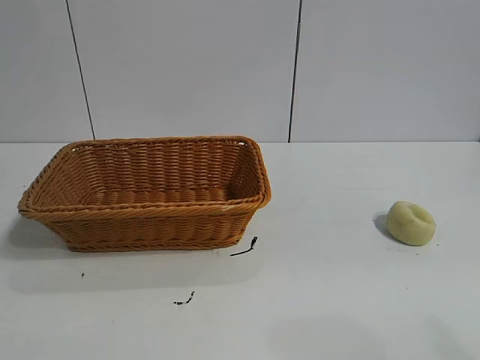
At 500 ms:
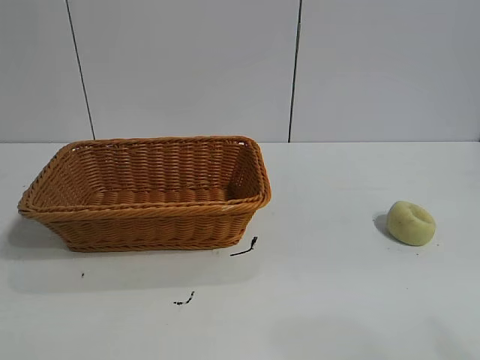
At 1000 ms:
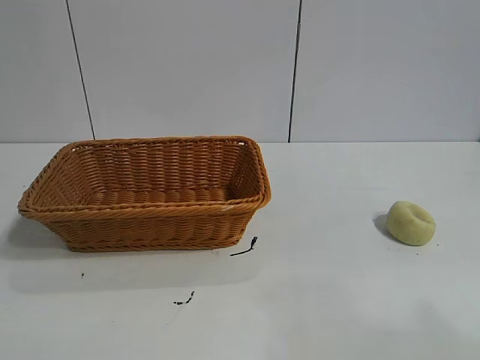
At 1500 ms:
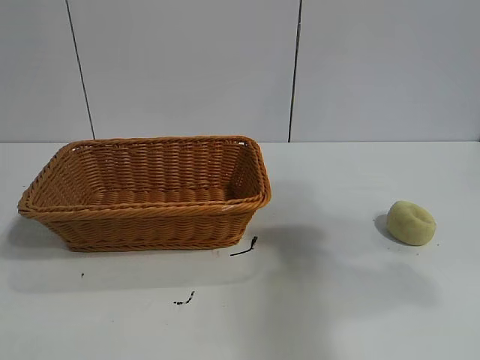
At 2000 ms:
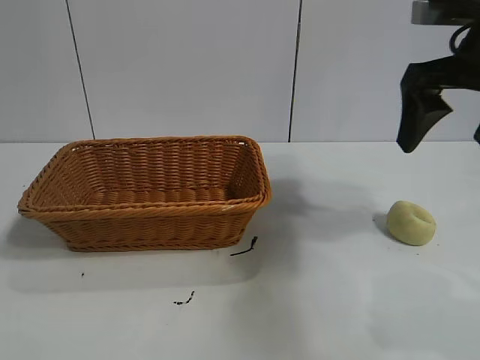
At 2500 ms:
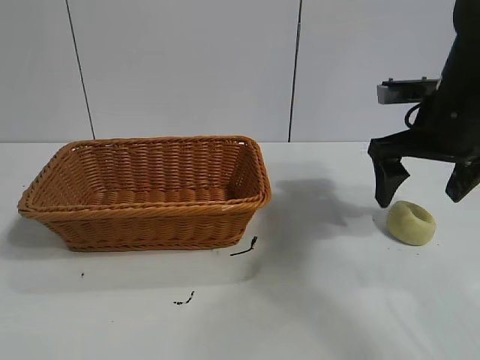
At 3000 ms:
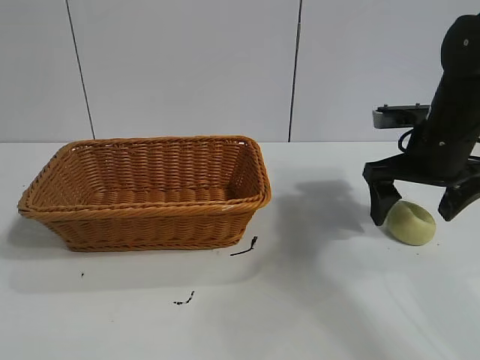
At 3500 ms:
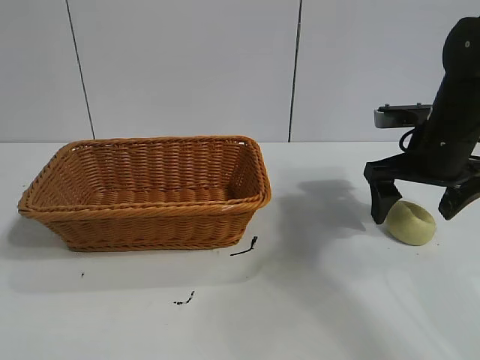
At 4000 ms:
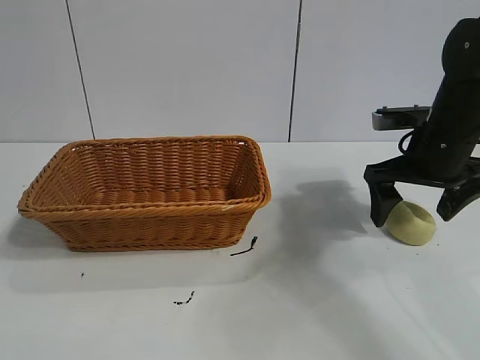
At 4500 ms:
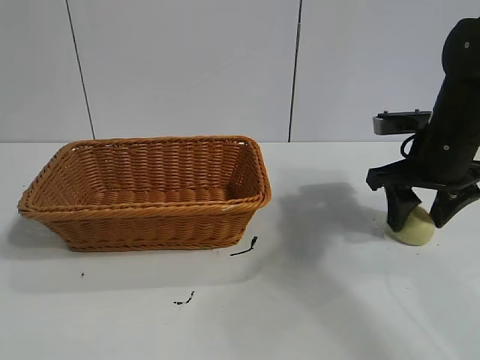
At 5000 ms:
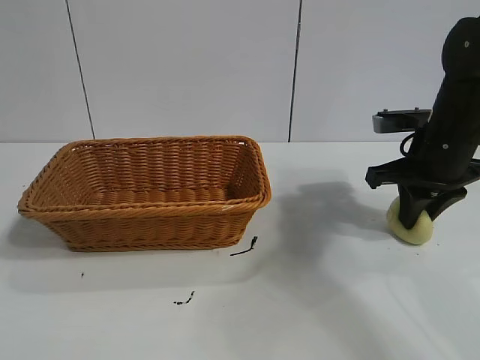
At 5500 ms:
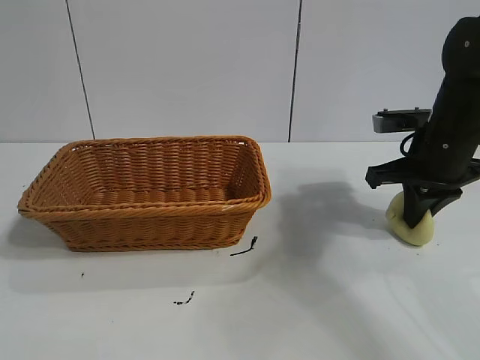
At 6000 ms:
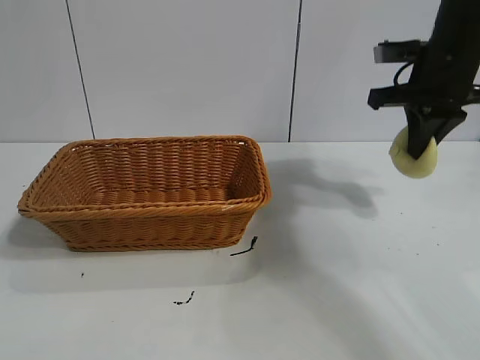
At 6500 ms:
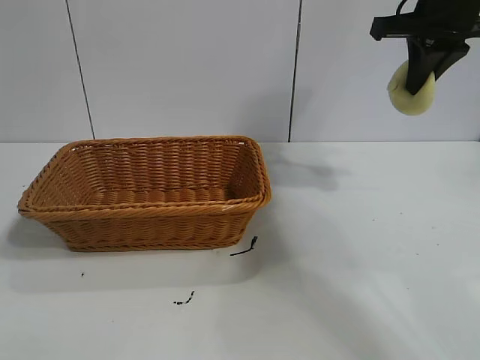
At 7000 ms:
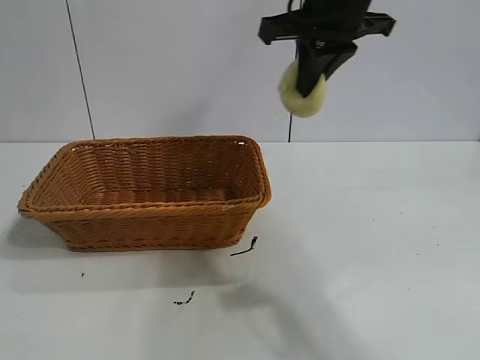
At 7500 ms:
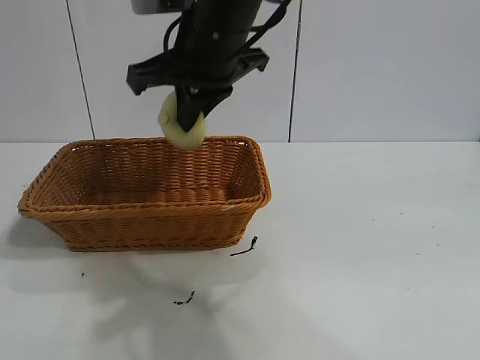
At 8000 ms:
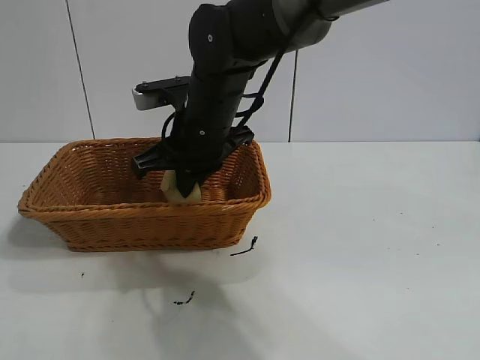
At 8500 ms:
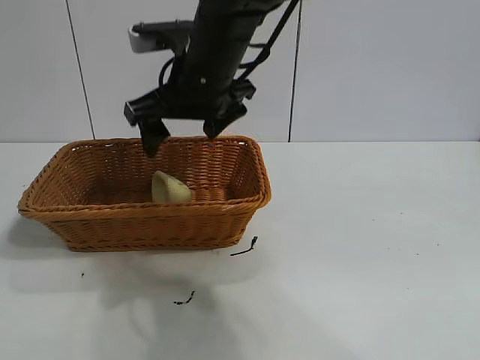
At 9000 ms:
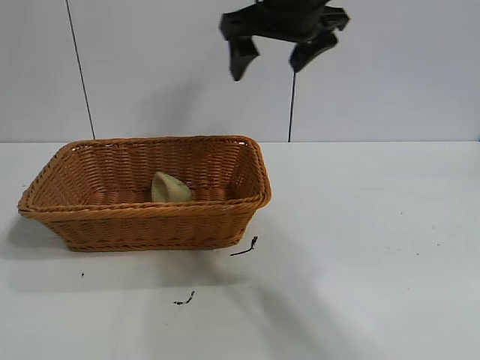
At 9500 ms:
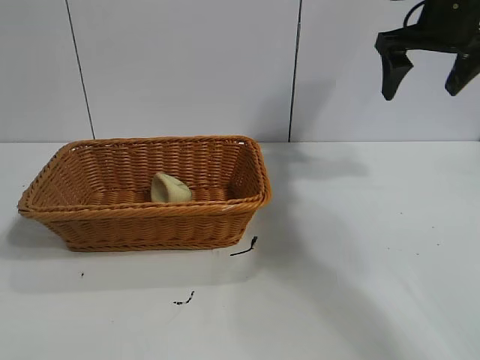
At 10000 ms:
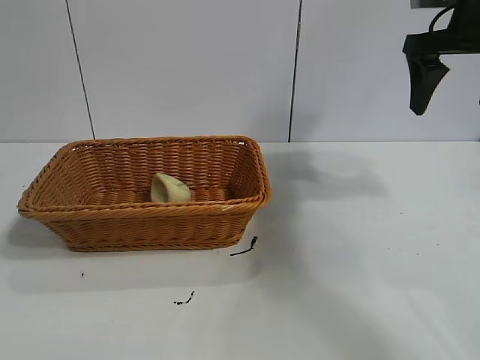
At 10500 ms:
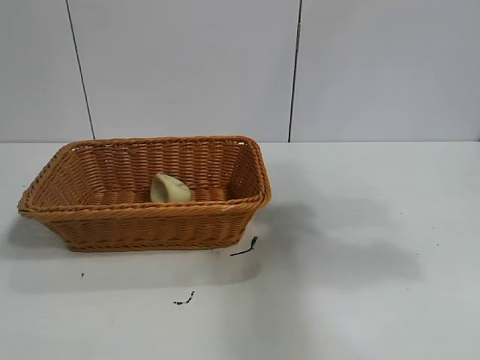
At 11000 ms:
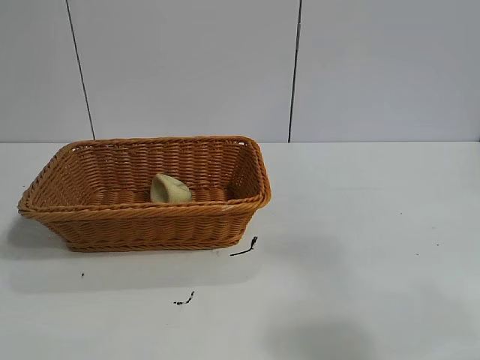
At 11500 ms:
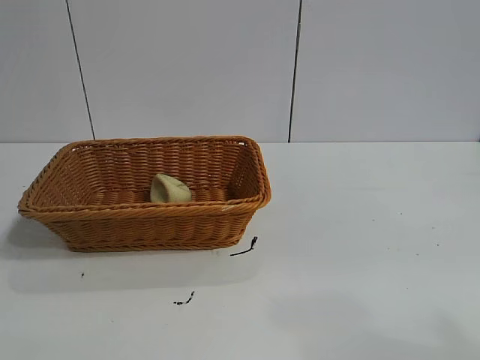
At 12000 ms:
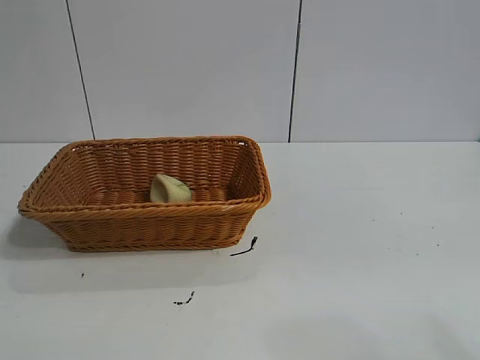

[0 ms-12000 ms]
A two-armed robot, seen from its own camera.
Task of the whole recording: pick up the egg yolk pastry and put it into the basket.
Step, 1000 ms to 4500 ms: Grasp egg yolk pastry with right gripper.
Step, 5000 ms to 8000 ms: Place the egg yolk pastry in the basket with right gripper.

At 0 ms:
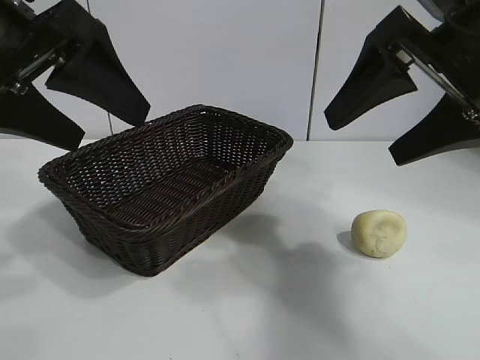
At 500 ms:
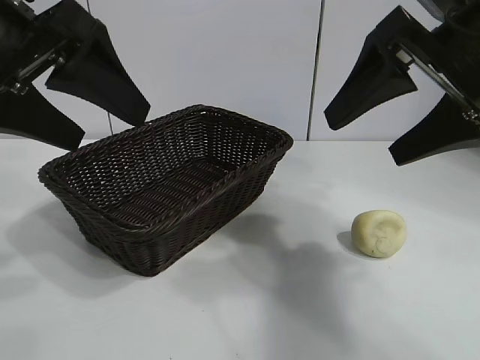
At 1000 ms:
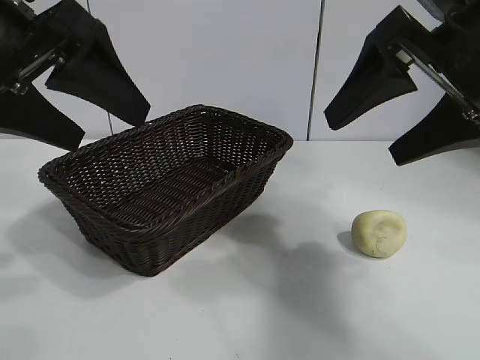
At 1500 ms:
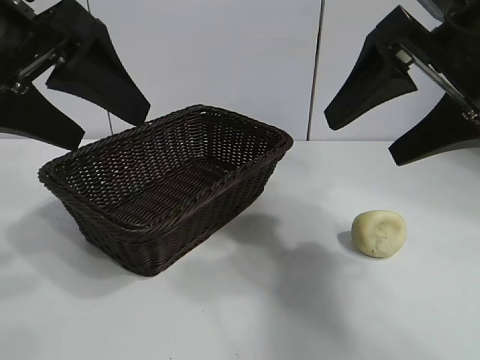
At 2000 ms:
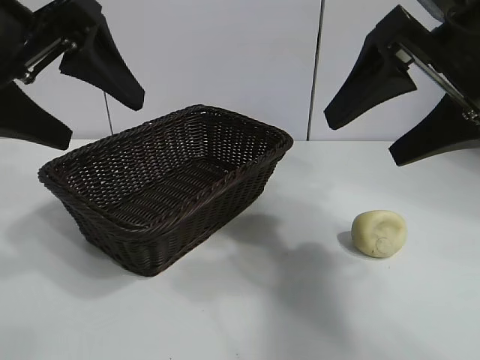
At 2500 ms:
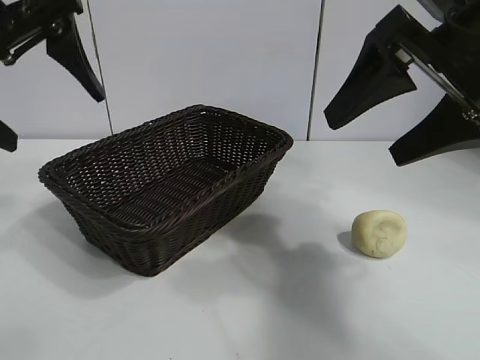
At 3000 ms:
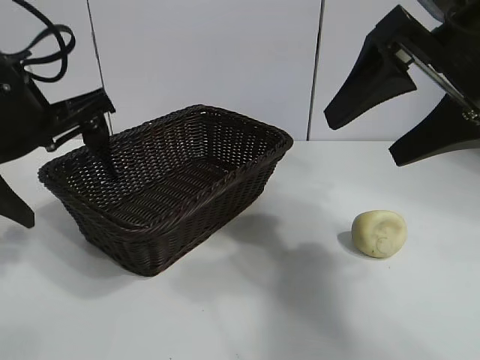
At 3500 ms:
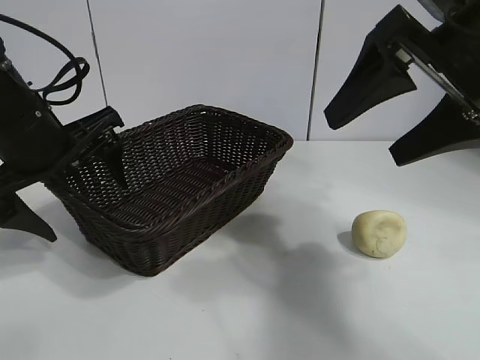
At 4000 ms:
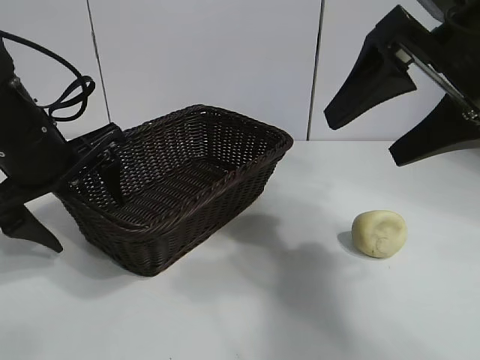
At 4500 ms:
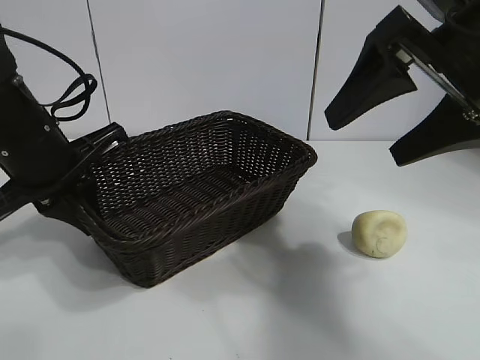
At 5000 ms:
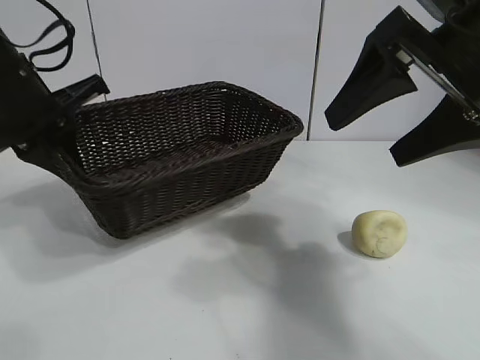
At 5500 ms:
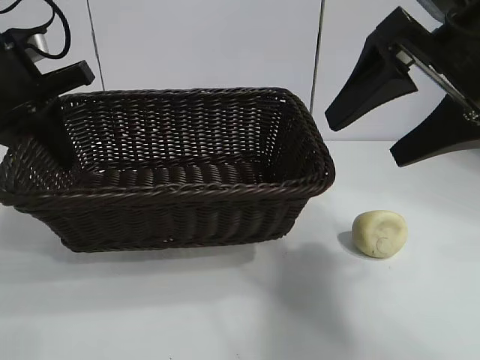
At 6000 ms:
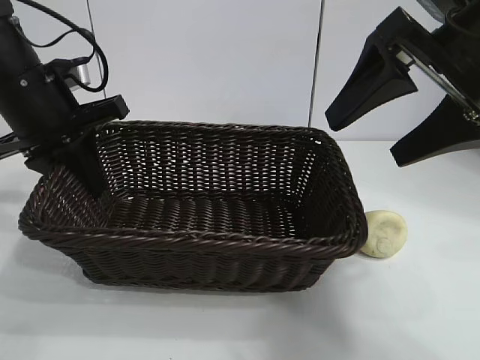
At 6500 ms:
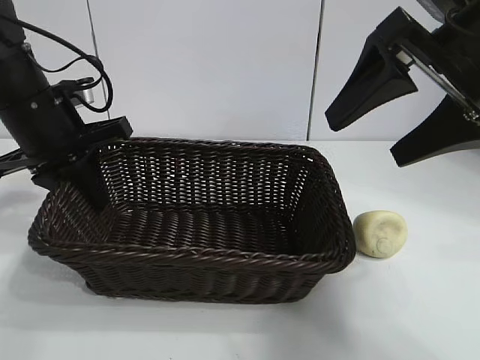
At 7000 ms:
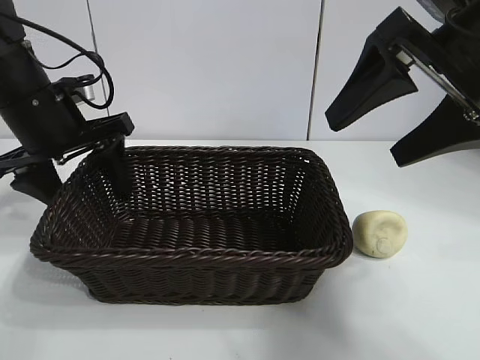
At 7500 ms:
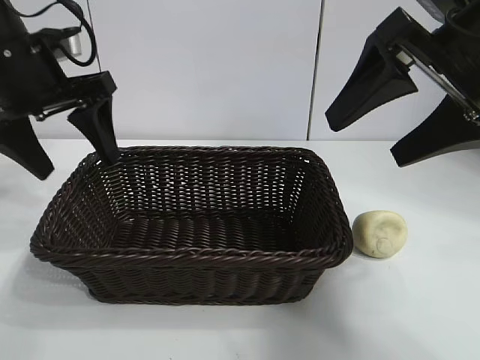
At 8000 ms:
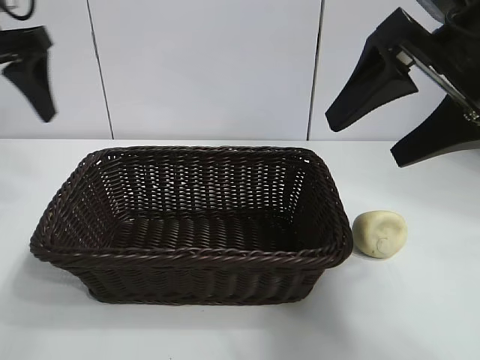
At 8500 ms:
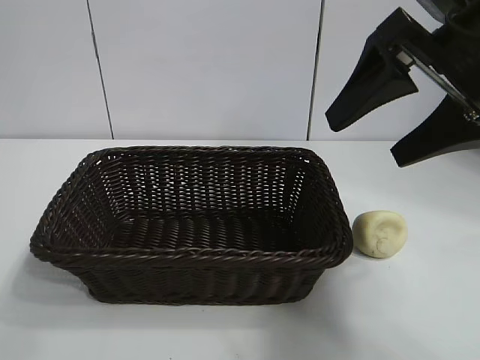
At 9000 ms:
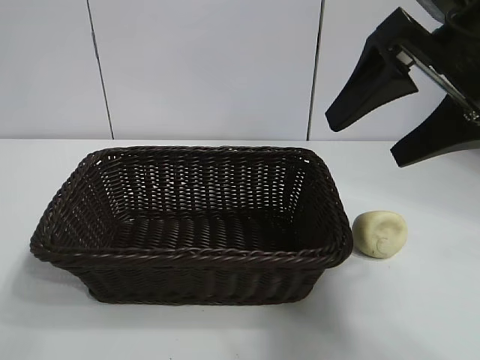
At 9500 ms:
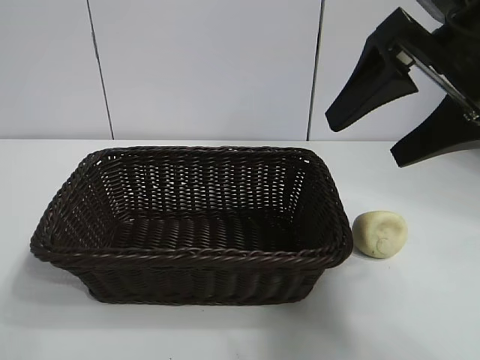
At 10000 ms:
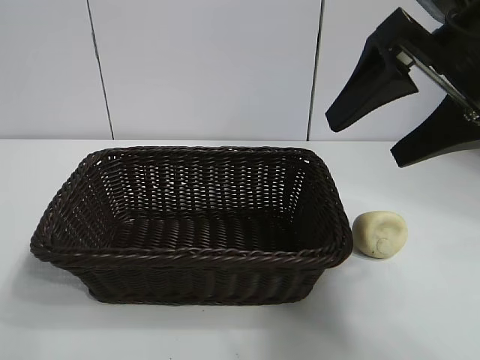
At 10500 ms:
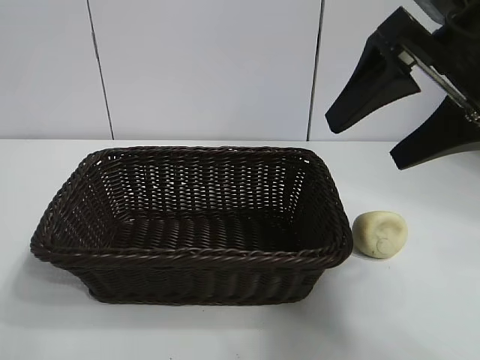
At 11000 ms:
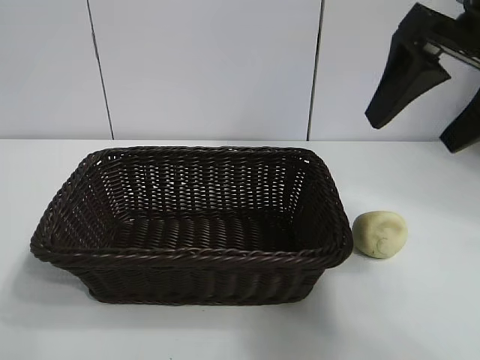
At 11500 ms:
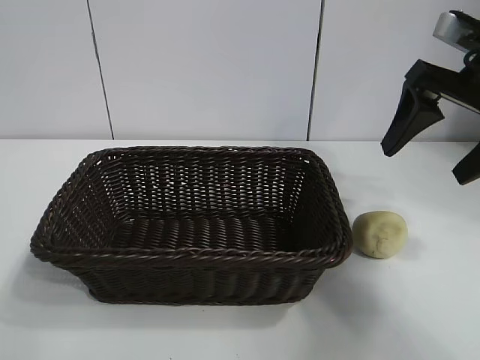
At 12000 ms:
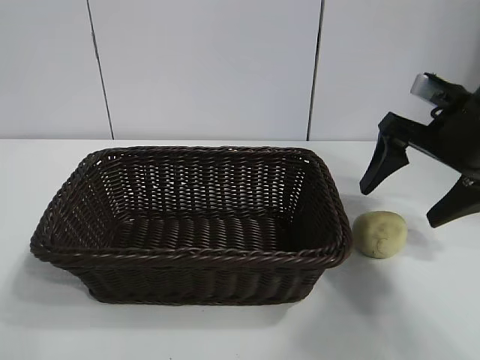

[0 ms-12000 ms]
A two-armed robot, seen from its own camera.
Task of the whole recording: pick up the egg yolk pastry and put it into the basket.
Step, 2000 ms to 4000 ms: Grasp the basket with left gripper.
Step, 4500 ms to 7000 ms: Place the basket in the center of view with left gripper.

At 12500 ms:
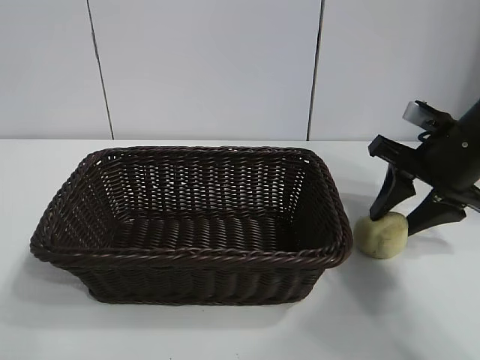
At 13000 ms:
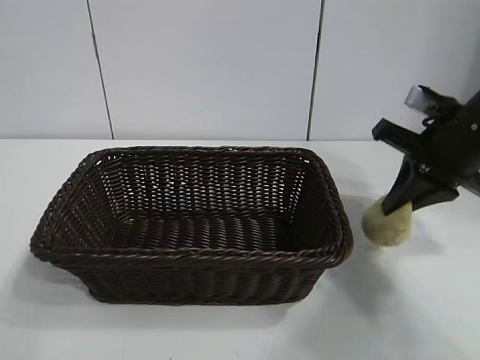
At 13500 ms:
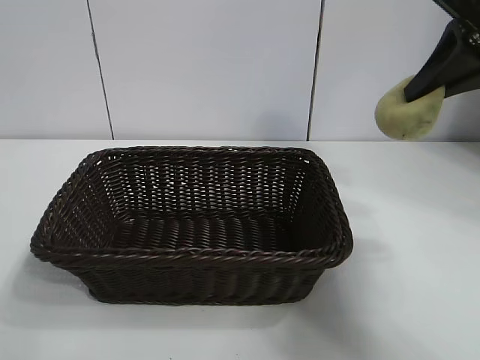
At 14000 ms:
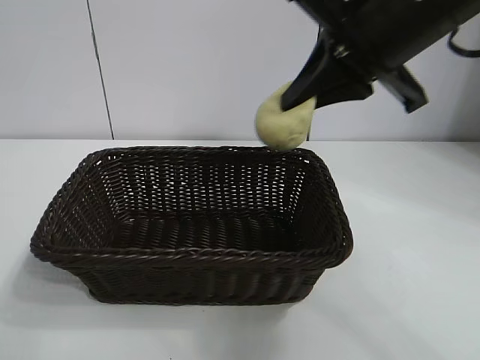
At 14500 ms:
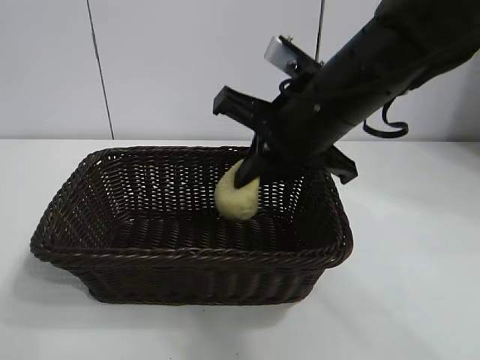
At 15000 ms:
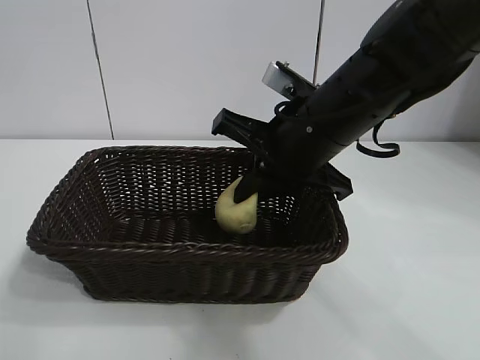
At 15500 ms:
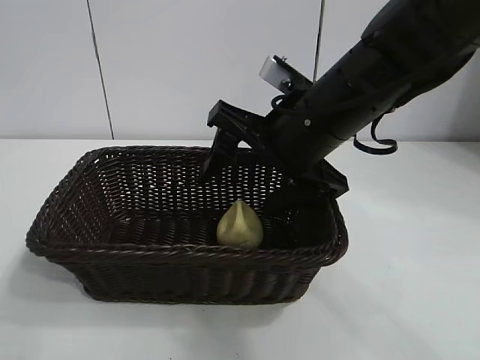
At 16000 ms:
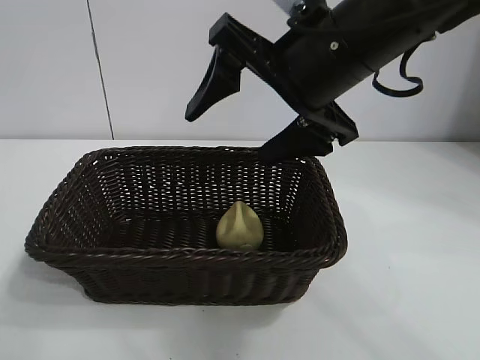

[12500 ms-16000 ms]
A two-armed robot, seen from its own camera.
Task of the whole recording: pick up the egg yolk pastry and put it into the basket.
Step, 13000 ms to 15500 ms: Place the egg yolk pastry in the basket with right gripper.
